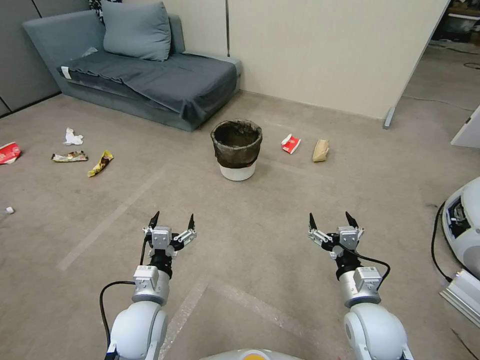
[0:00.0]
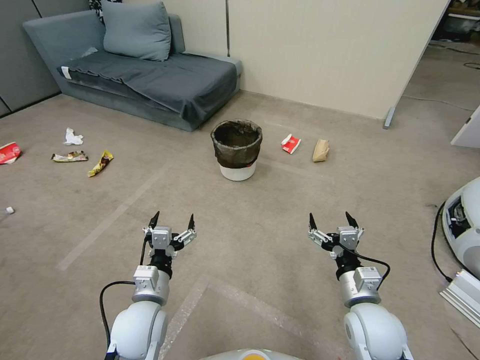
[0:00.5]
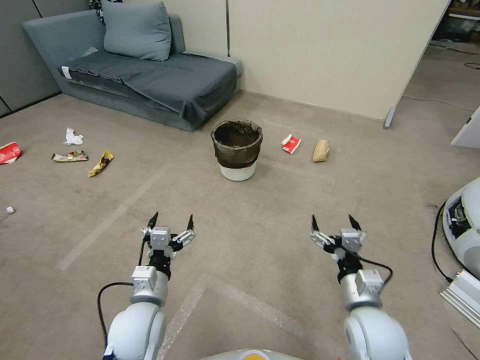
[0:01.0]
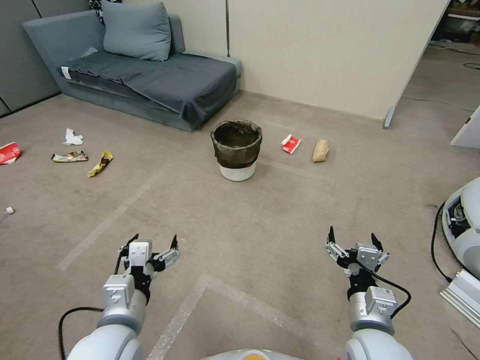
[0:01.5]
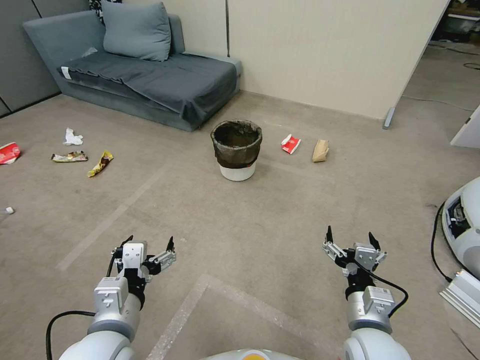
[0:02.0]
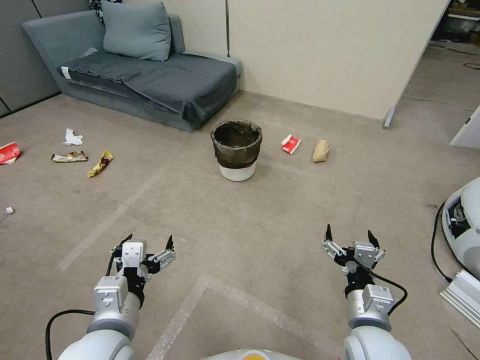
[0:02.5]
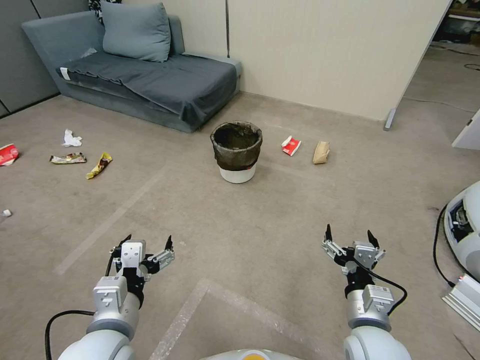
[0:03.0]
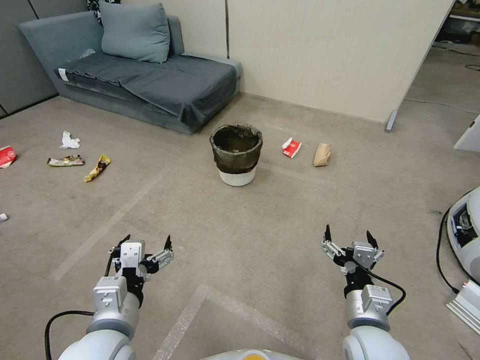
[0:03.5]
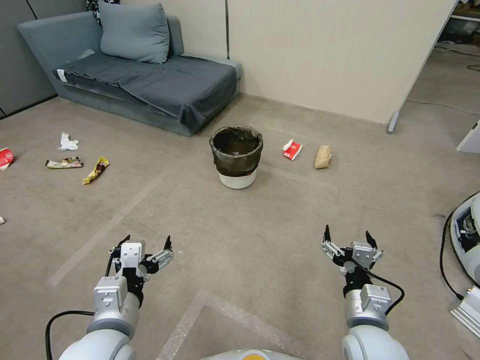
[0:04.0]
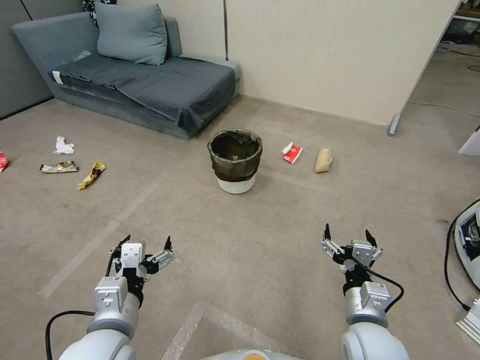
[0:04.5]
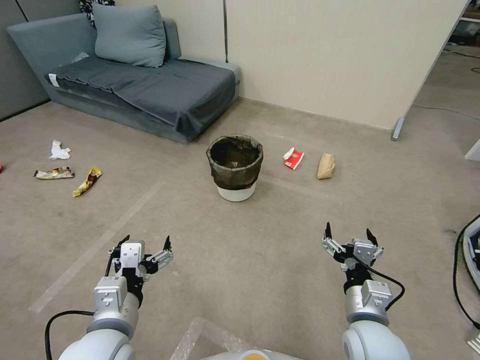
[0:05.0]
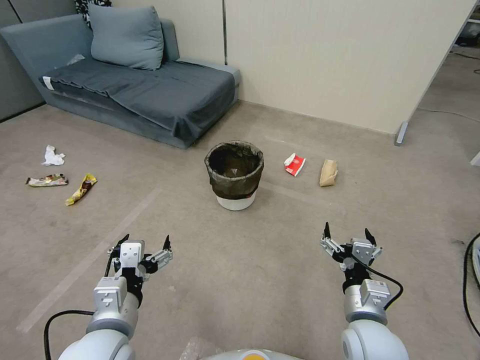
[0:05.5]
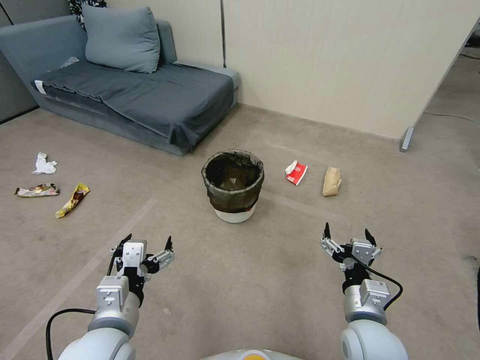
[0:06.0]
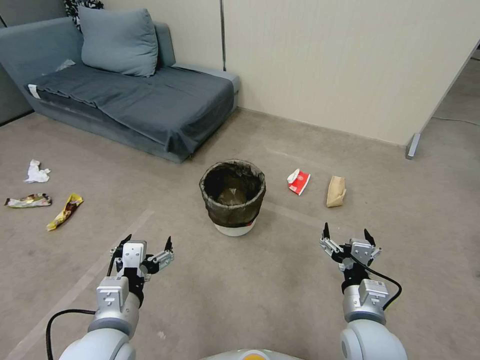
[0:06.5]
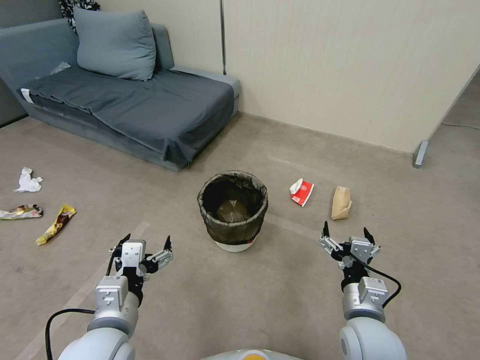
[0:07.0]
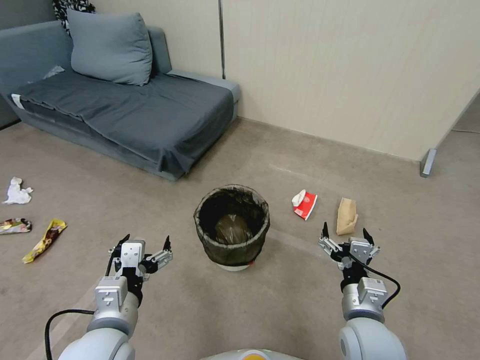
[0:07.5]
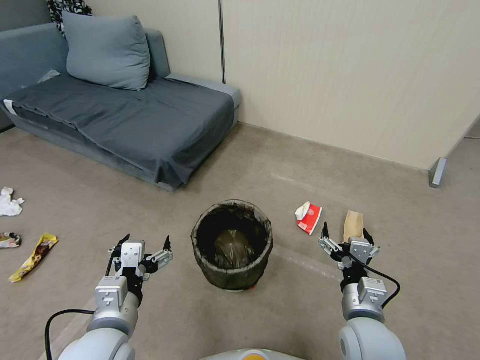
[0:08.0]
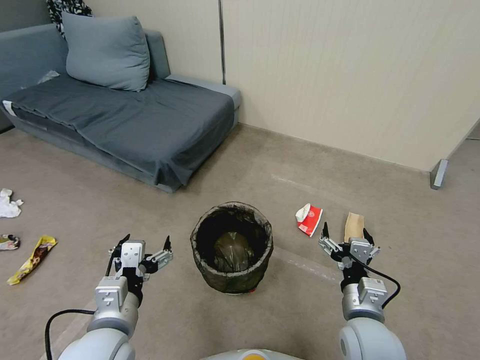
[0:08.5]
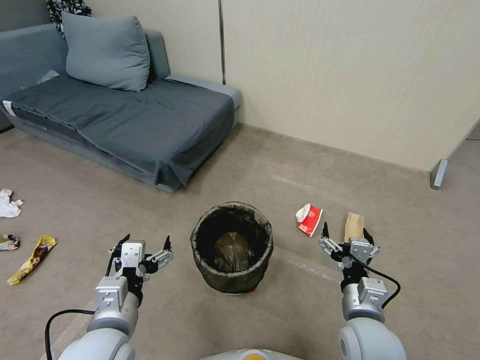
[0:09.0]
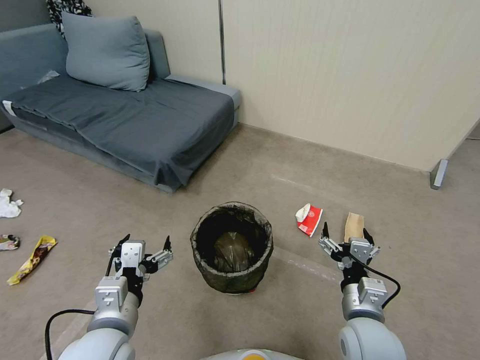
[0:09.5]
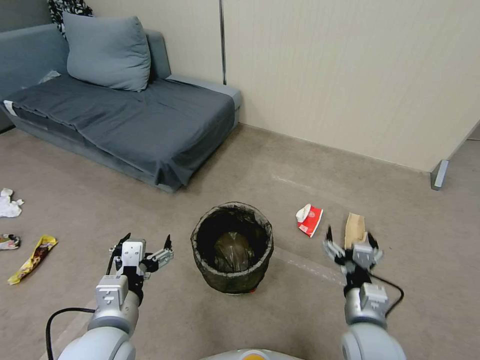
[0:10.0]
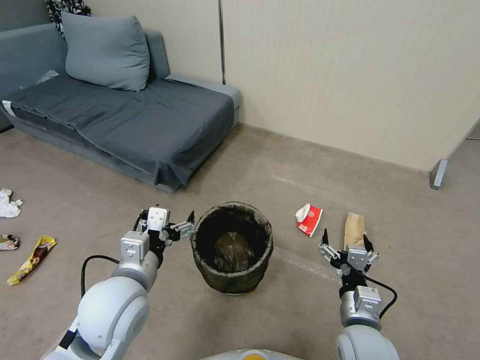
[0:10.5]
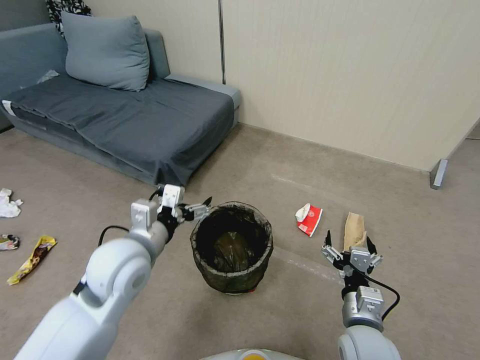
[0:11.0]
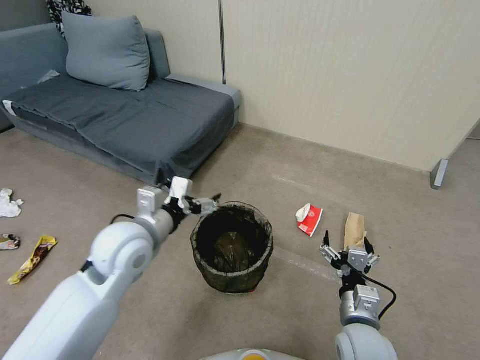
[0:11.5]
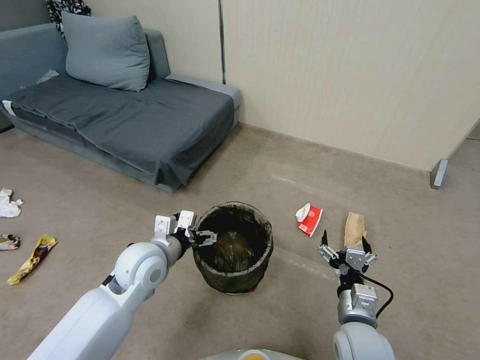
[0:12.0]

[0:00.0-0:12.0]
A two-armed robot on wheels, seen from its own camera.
Task of the whole recording: Pick up the trash bin, then pick up the garbage from the floor and place it into the trash bin.
0:02.0 to 0:04.0: Both grippers stay put.
0:08.0 to 0:10.0: Both grippers stay put.
0:10.0 to 0:12.0: The left gripper goes about 15 cm forward.

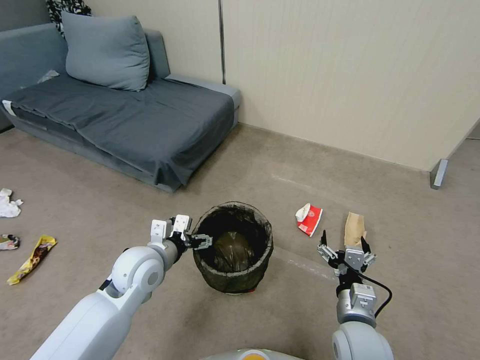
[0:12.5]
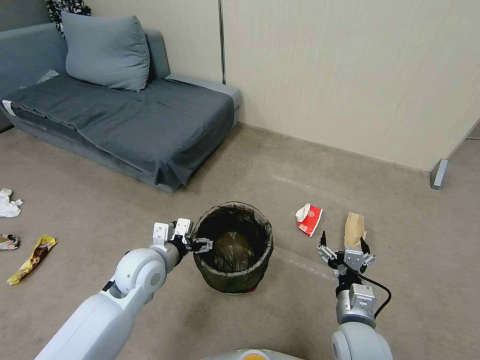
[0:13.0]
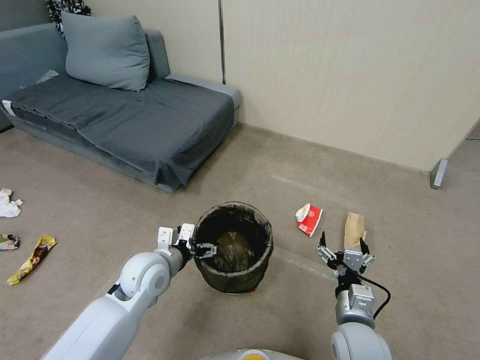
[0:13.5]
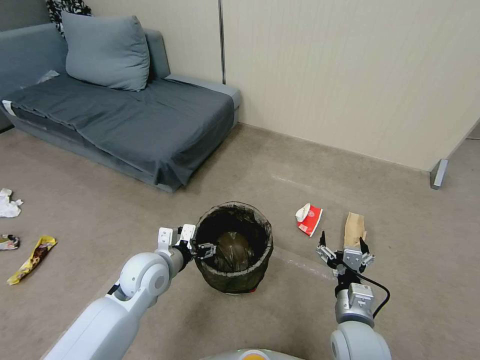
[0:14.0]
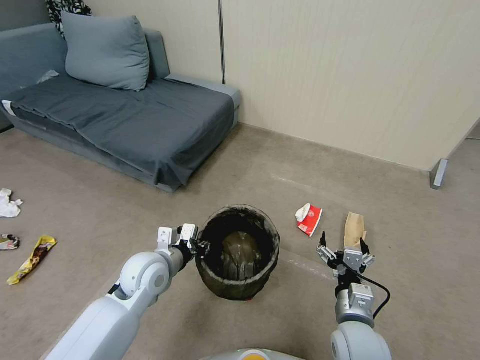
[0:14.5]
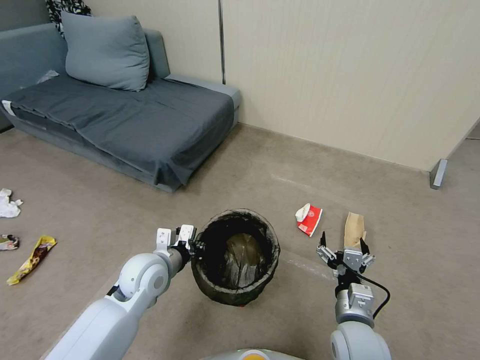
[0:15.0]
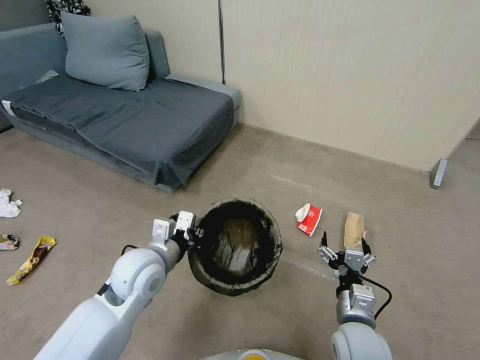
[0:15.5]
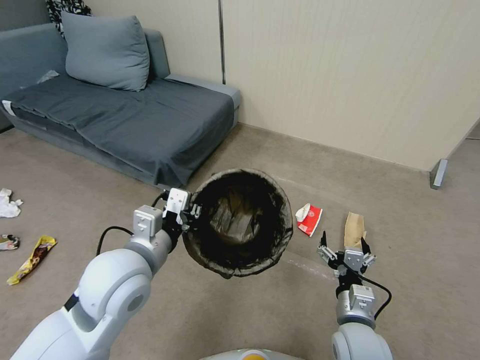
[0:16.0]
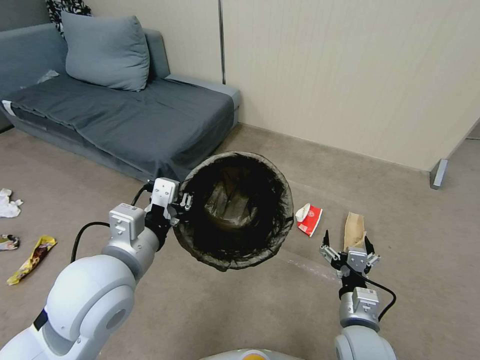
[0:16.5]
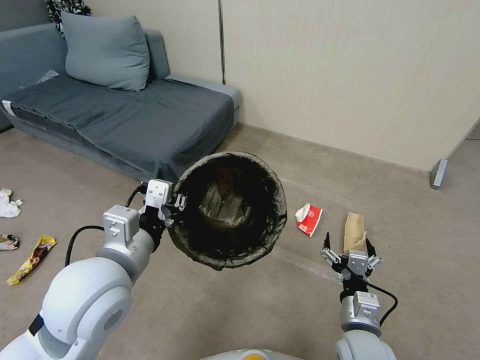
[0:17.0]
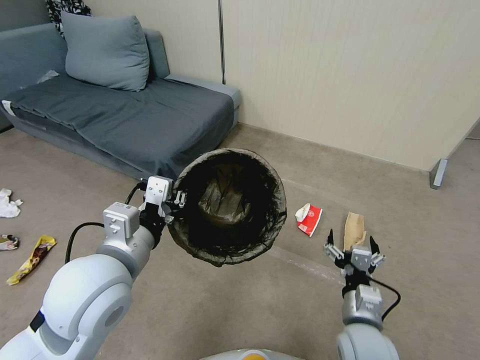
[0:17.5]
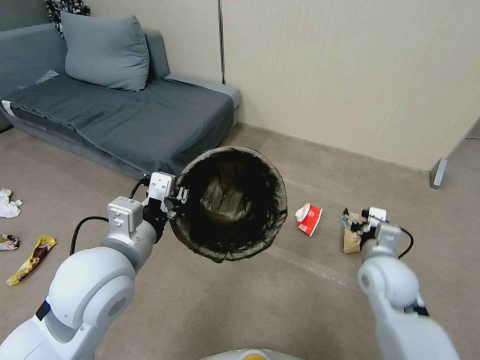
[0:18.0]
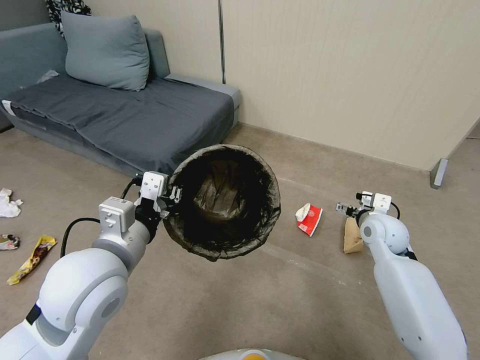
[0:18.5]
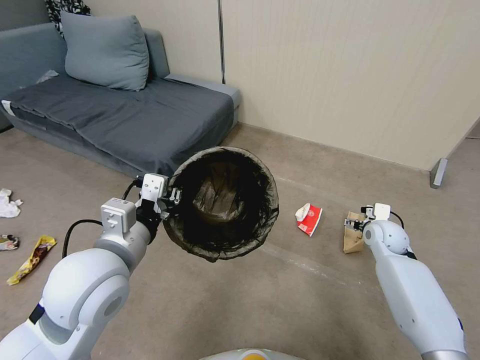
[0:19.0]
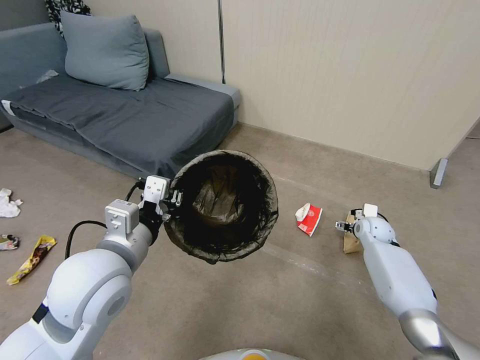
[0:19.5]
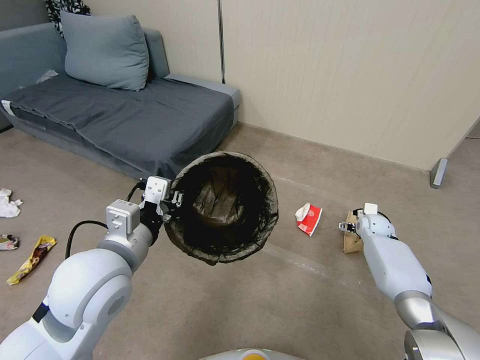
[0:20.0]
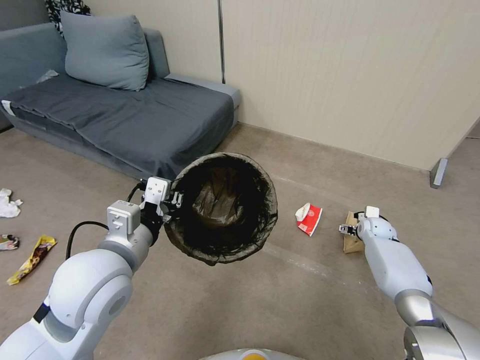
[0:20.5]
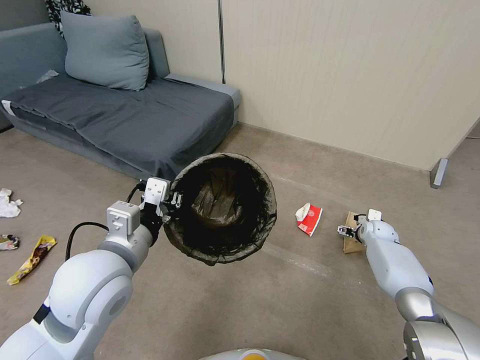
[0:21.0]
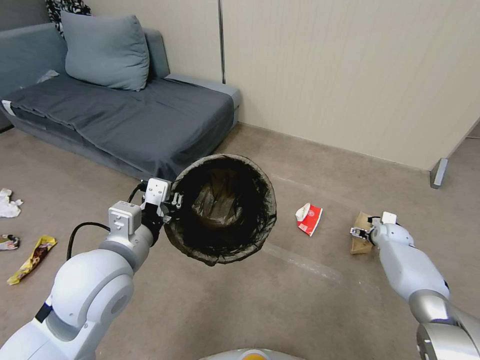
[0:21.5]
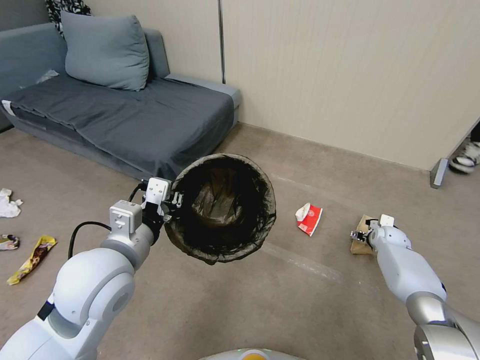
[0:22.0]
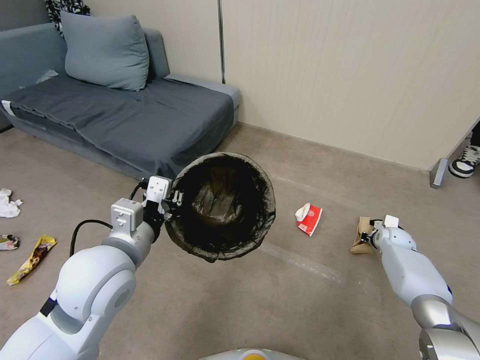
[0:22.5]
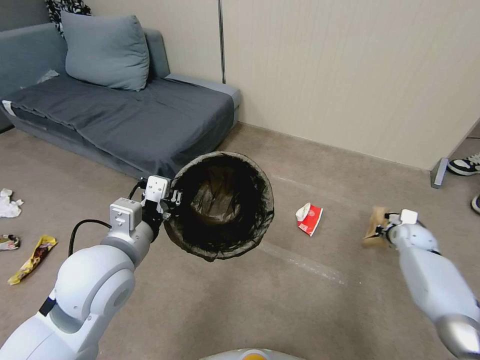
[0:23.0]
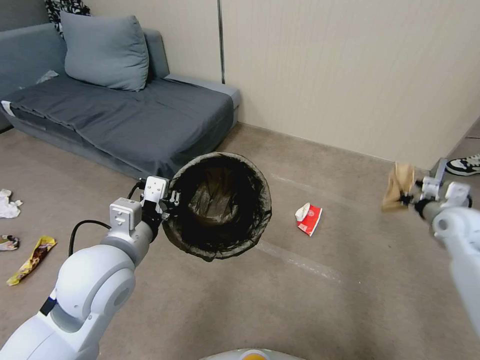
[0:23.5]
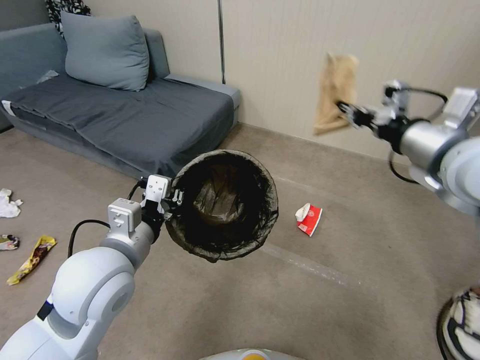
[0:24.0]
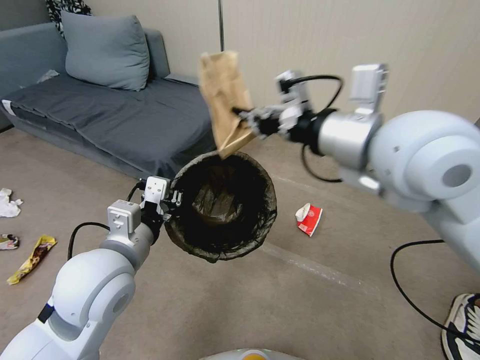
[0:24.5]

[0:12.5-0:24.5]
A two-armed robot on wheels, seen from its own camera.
Task of the whole recording: Pick up the trash bin, then pick up the garbage from the floor and place it into the trash bin.
0:12.5 to 0:14.5: The left gripper closes.
0:14.5 to 0:16.5: The left gripper is displaced upward and backward by about 20 cm.
0:16.5 to 0:18.5: The right gripper travels forward and to the right by approximately 25 cm.
0:18.5 to 0:20.5: The right gripper moves downward, forward and to the right, about 20 cm.
0:20.5 to 0:22.5: The right gripper moves to the right, some 5 cm, and closes up.
0:22.5 to 0:24.5: The right gripper moves upward and to the left, approximately 60 cm.

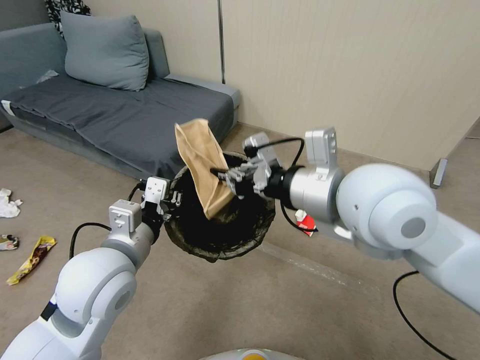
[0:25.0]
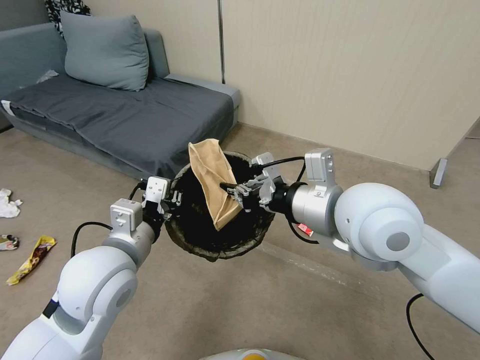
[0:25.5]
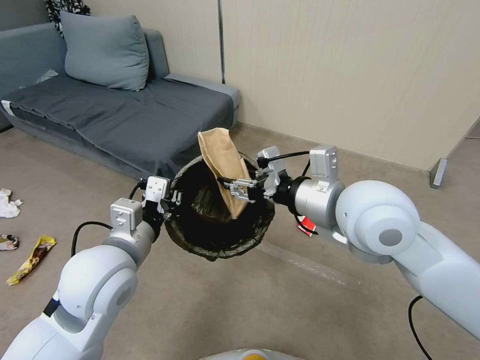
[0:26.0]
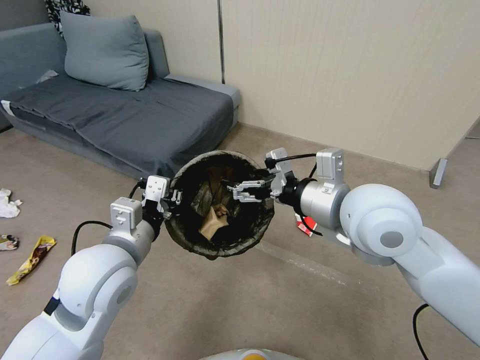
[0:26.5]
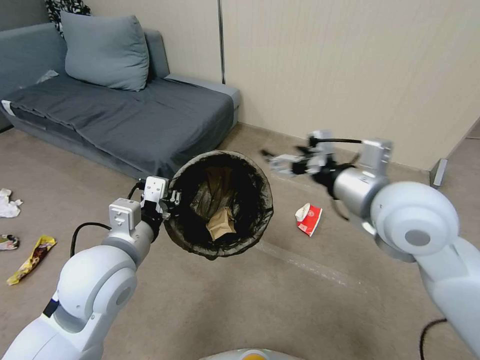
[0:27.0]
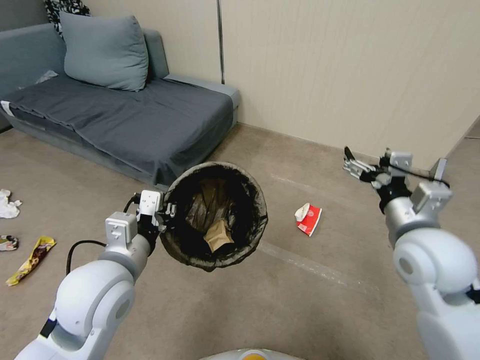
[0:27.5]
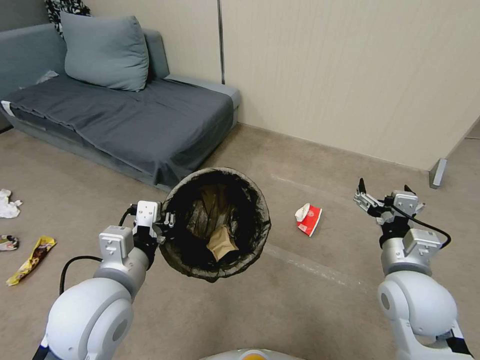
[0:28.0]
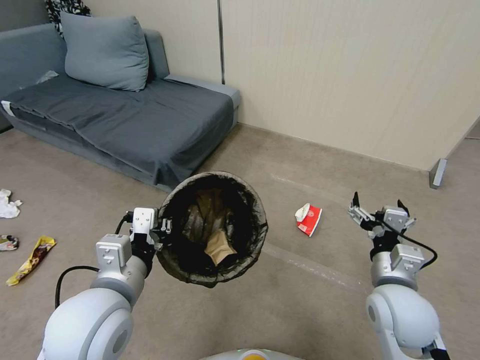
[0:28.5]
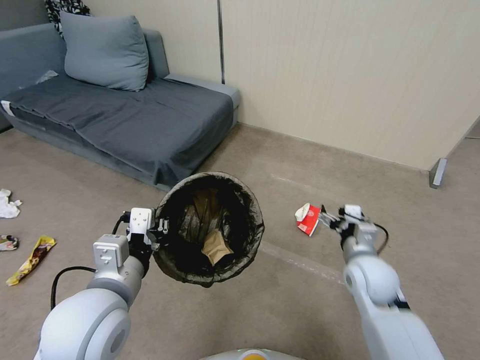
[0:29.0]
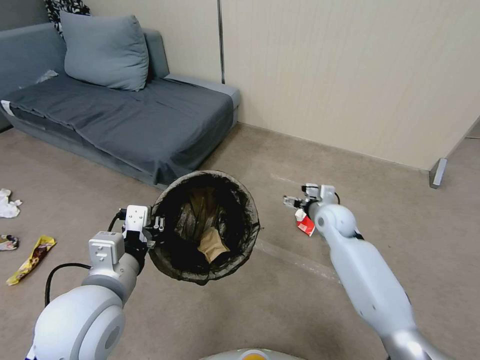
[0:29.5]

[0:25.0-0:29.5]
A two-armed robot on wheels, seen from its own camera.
Task of the whole recording: Pick up the trash bin, then pick up the garbage from the floor and place it into the trash bin.
0:25.0 to 0:27.0: The right gripper goes about 10 cm to the right and downward, and opens its fingers.
0:27.0 to 0:29.5: The left gripper is displaced backward by about 5 cm. The right gripper shifts roughly 30 cm downward and forward.
